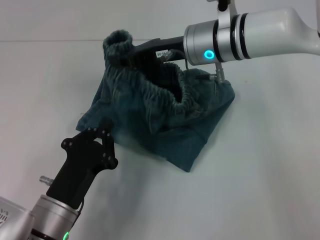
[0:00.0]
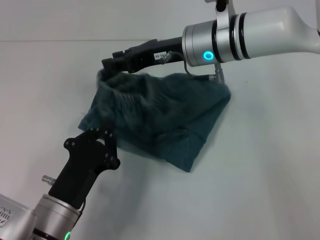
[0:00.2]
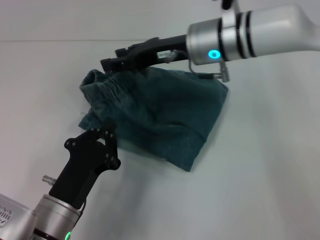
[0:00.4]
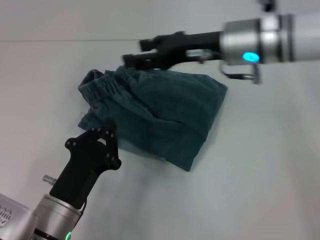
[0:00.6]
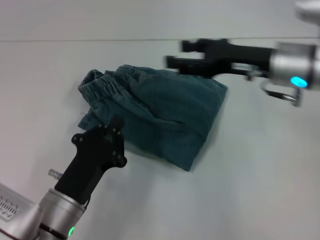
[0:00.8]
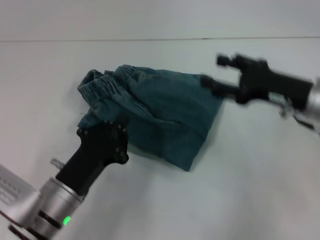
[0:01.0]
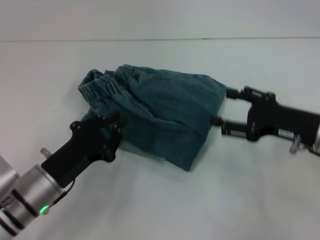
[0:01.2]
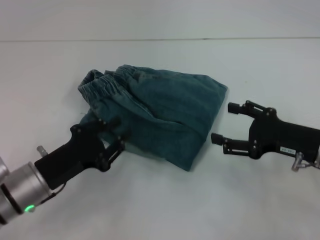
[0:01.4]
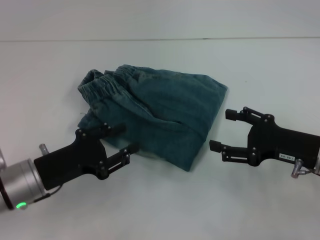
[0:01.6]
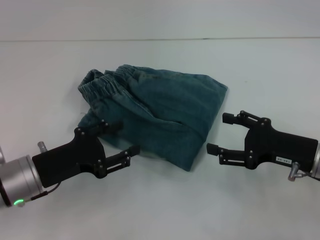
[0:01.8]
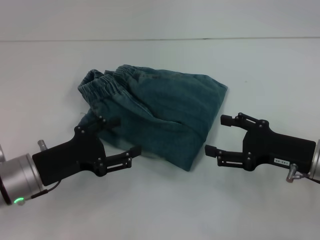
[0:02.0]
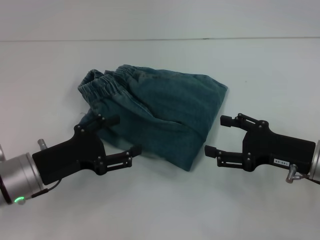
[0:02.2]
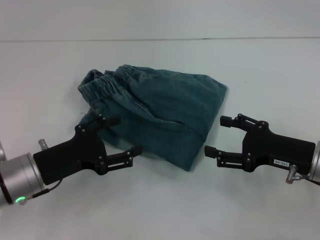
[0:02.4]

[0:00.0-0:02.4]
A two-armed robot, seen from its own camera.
0:00.0 to 0:01.2: The left gripper shifts by some 5 cm, while the right gripper heads to the right, backward and downward, covering about 25 cm, and opens its fingers.
0:01.2 to 0:02.4: The left gripper opens.
